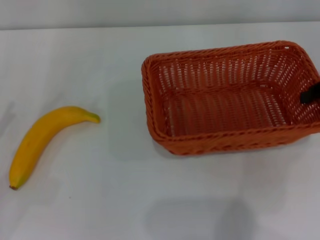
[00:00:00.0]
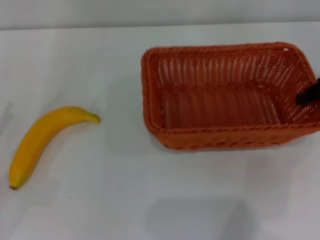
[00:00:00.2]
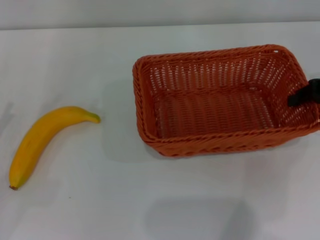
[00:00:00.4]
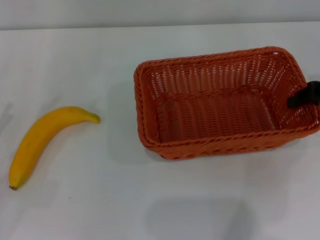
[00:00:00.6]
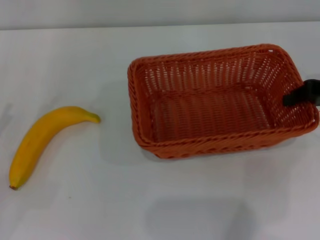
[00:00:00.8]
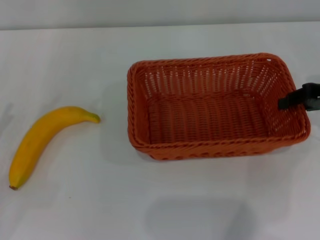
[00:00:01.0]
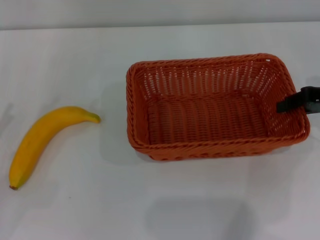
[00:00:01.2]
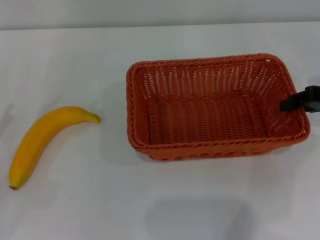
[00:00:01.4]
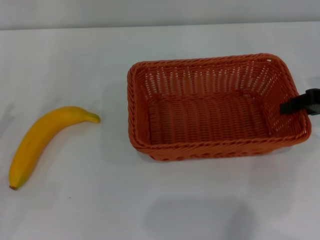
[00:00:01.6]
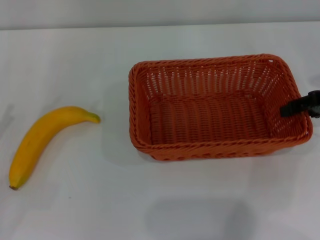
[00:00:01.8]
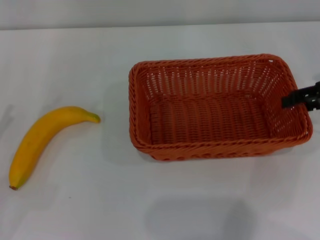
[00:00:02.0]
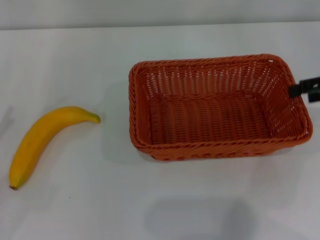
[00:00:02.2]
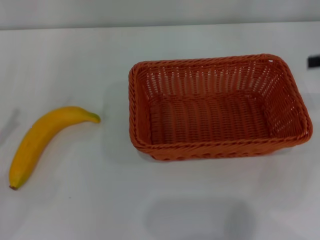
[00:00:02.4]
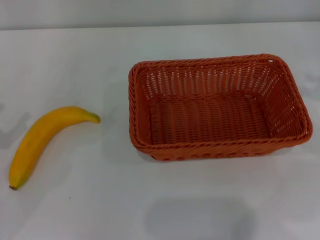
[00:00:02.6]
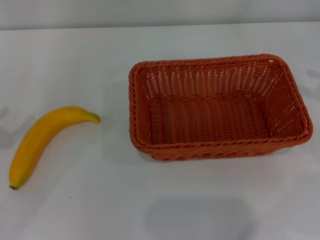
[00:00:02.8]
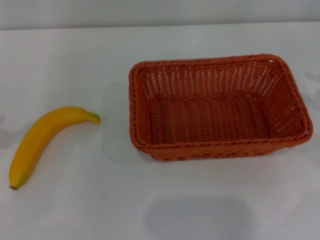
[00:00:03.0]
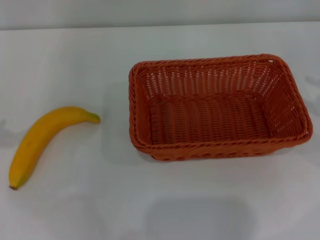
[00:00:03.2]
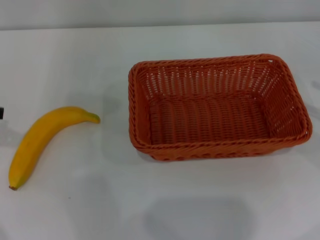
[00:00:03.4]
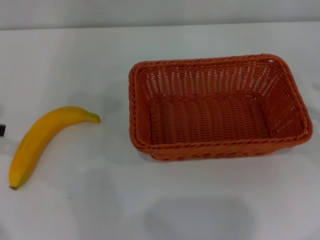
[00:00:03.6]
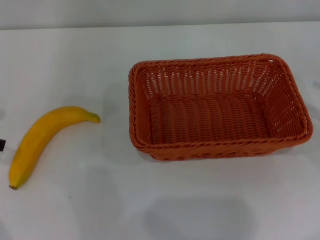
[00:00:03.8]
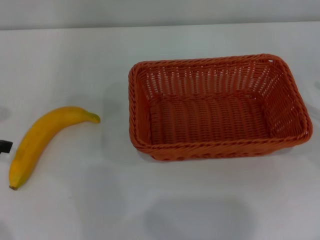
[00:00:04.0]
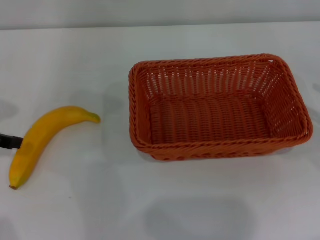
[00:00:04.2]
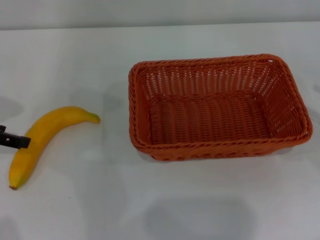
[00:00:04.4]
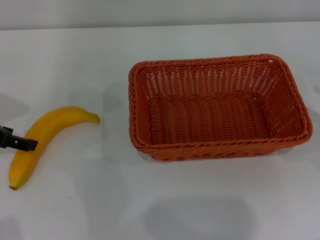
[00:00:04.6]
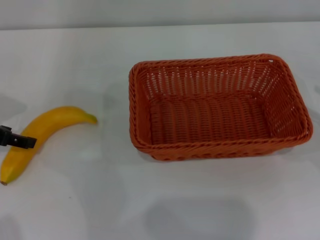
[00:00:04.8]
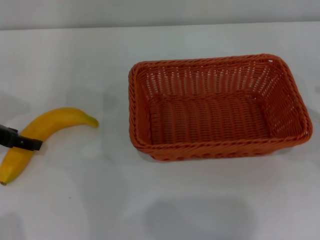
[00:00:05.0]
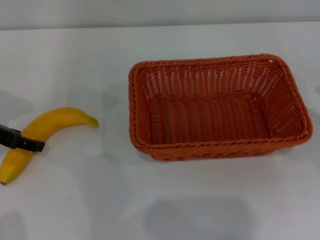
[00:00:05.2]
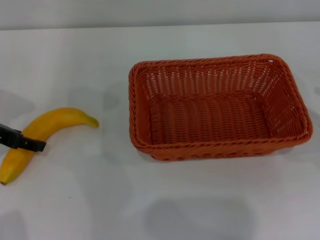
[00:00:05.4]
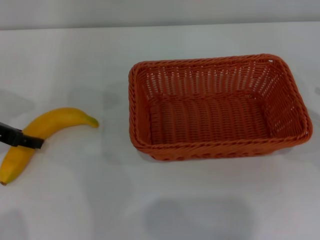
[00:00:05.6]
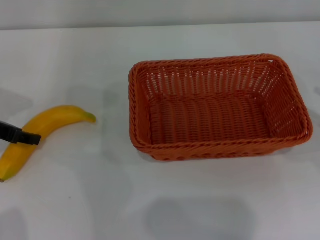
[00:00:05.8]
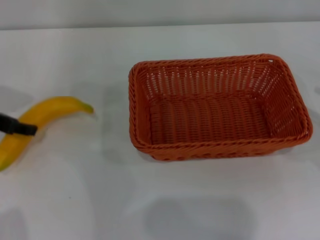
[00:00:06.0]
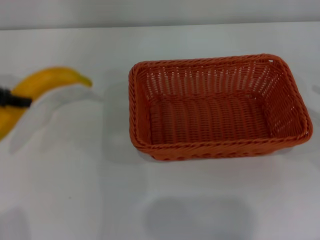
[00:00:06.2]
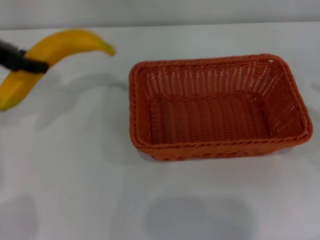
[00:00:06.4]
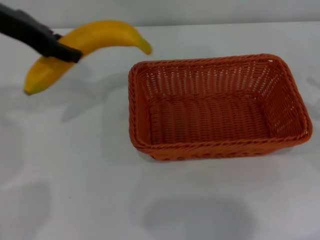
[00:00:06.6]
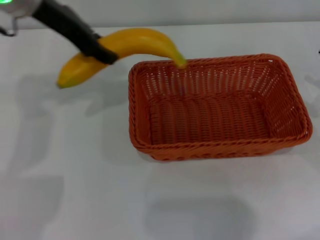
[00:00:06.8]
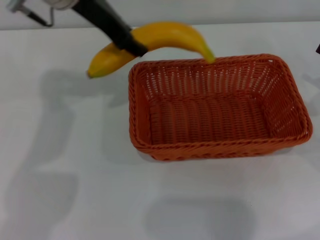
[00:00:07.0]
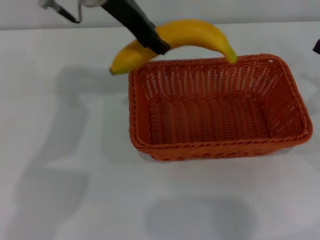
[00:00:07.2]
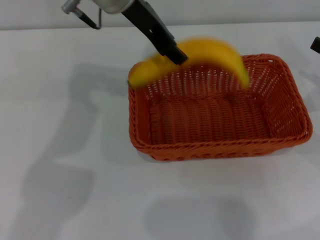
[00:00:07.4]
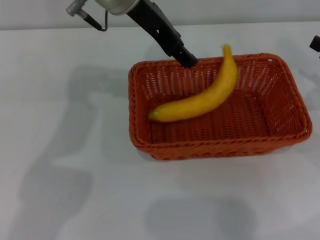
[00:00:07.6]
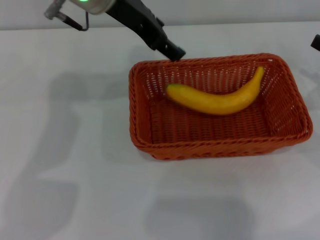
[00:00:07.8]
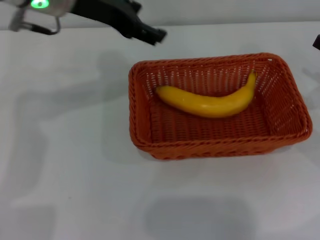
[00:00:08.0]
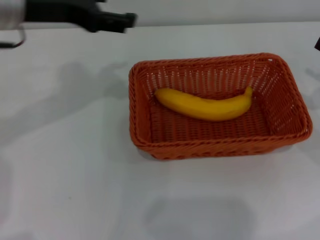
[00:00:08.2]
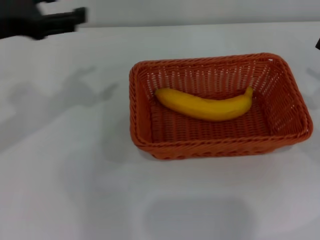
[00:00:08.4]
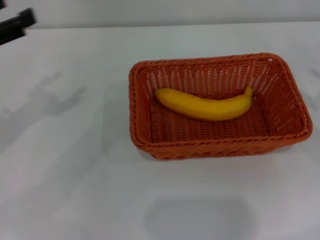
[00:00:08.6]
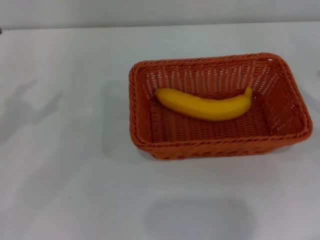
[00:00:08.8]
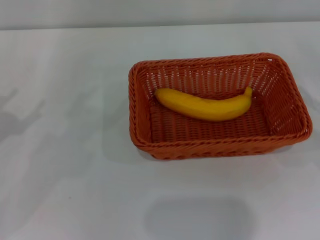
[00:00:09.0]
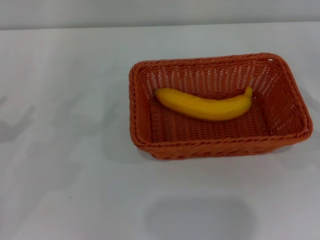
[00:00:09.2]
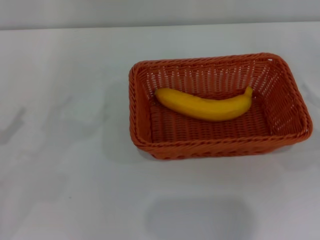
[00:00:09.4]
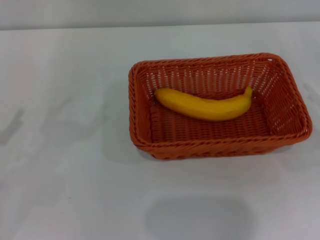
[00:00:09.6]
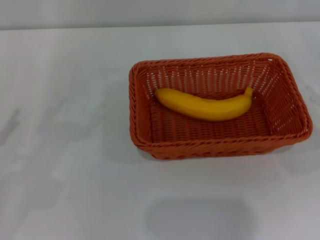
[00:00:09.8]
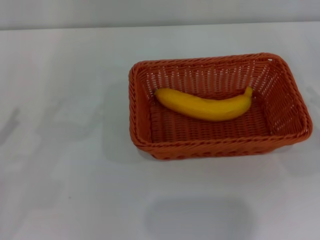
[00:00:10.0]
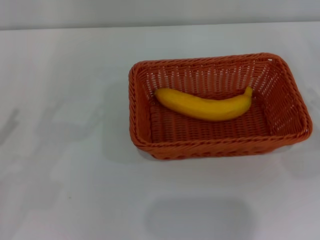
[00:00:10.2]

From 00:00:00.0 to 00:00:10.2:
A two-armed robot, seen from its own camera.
Step, from 00:00:00.0 to 00:00:02.2: Place the light basket in the center of view with the right gripper.
Step, from 00:00:02.6 to 00:00:06.0: Pick up the banana with the left gripper.
Step, from 00:00:06.4 to 00:00:08.0: Place the banana into the light basket with the left gripper.
From 00:00:00.0 to 00:00:01.4: The grippers stay close to where they were, moving slightly.
From 00:00:01.4 to 00:00:03.0: The left gripper travels upward by about 10 cm. The right gripper goes approximately 10 cm to the right, and opens.
From 00:00:04.4 to 00:00:05.8: The left gripper closes up.
From 00:00:05.8 to 00:00:07.2: The left gripper moves to the right and upward, roughly 25 cm, and closes up.
From 00:00:07.2 to 00:00:08.8: The left gripper moves to the left, backward and downward, approximately 30 cm, and opens.

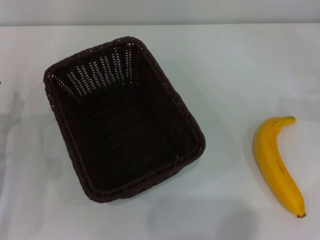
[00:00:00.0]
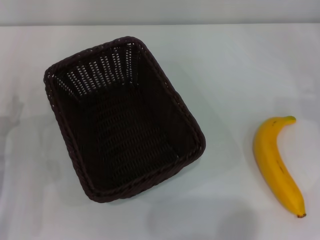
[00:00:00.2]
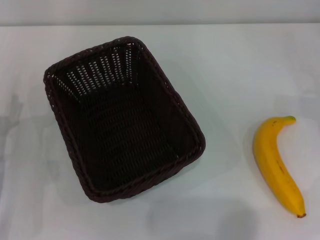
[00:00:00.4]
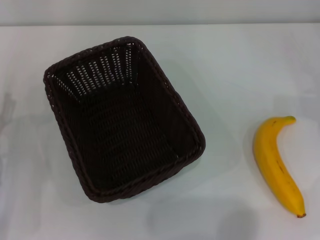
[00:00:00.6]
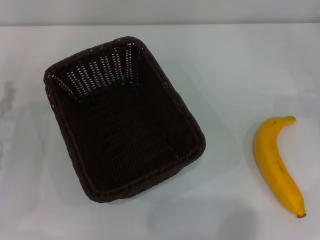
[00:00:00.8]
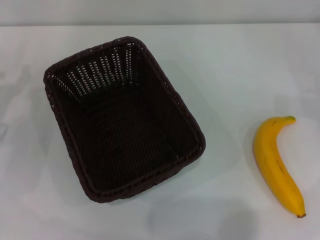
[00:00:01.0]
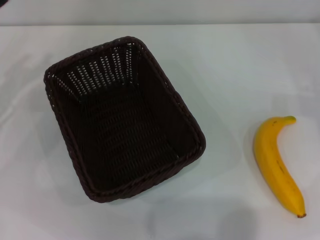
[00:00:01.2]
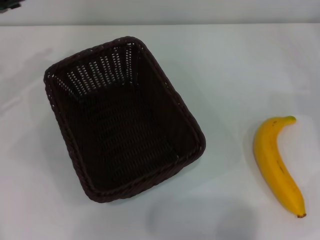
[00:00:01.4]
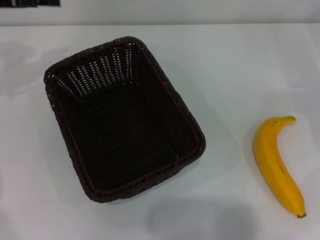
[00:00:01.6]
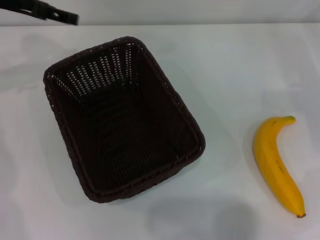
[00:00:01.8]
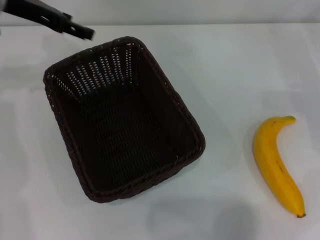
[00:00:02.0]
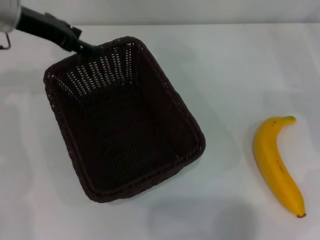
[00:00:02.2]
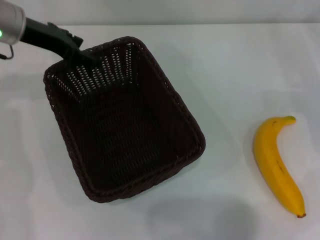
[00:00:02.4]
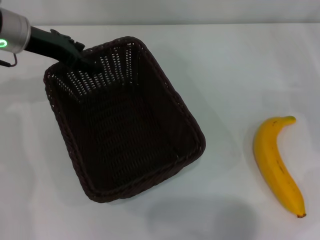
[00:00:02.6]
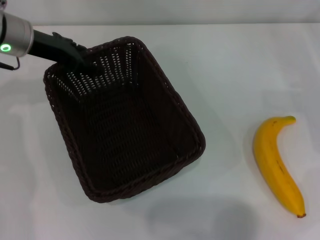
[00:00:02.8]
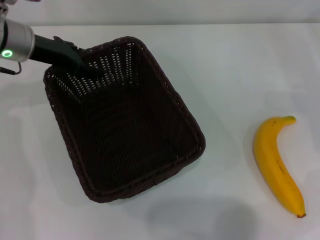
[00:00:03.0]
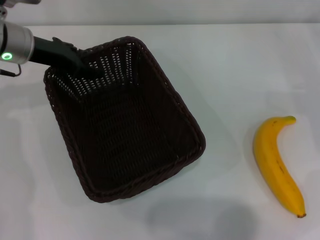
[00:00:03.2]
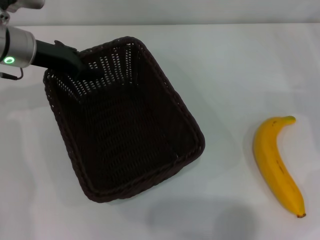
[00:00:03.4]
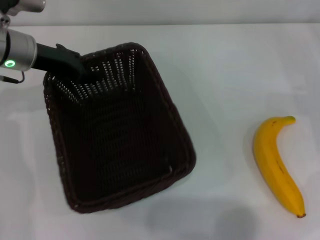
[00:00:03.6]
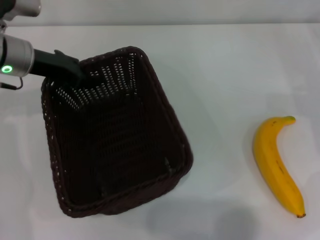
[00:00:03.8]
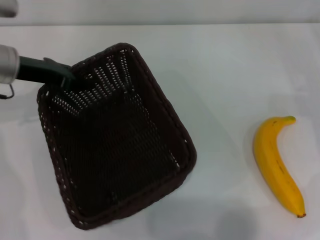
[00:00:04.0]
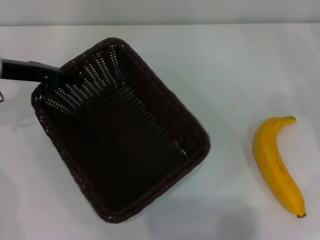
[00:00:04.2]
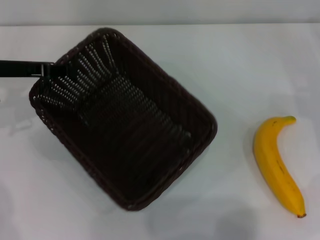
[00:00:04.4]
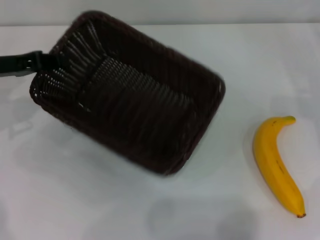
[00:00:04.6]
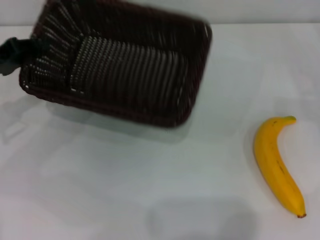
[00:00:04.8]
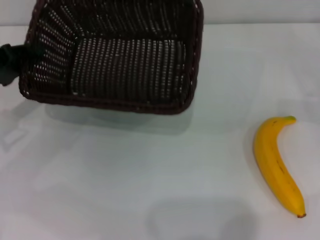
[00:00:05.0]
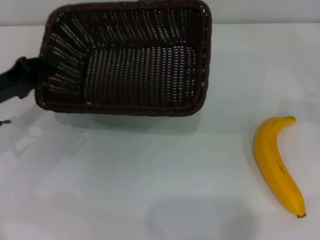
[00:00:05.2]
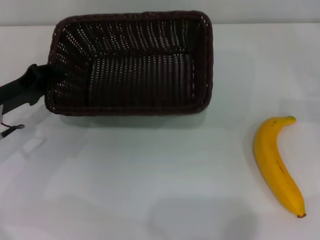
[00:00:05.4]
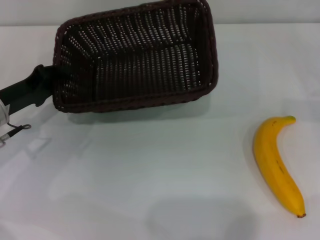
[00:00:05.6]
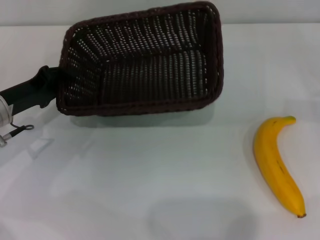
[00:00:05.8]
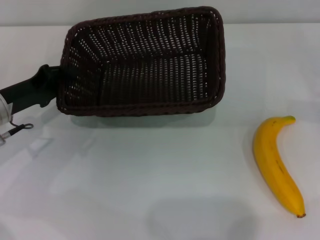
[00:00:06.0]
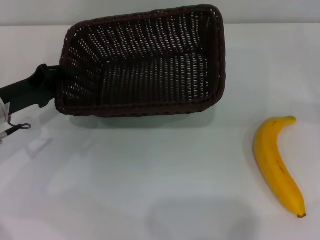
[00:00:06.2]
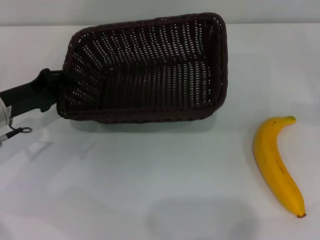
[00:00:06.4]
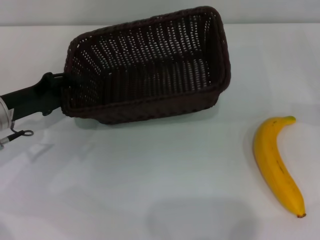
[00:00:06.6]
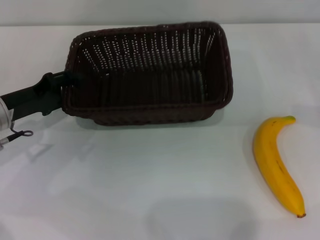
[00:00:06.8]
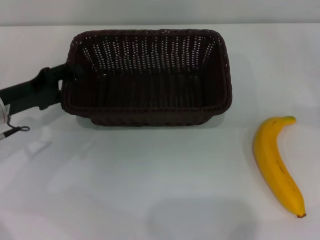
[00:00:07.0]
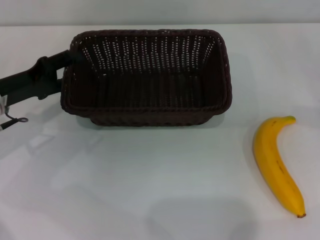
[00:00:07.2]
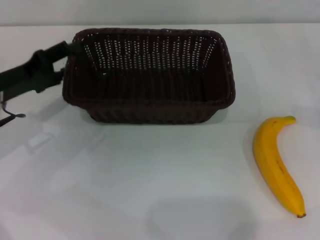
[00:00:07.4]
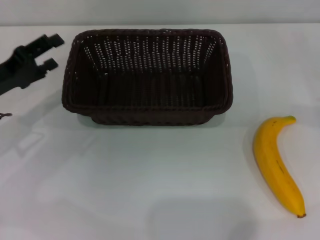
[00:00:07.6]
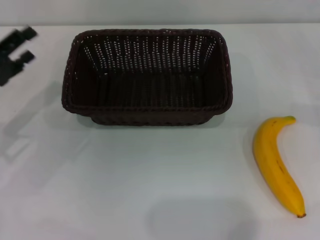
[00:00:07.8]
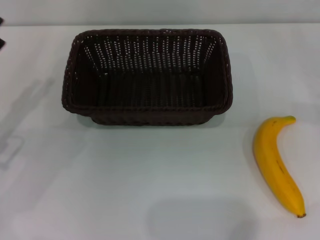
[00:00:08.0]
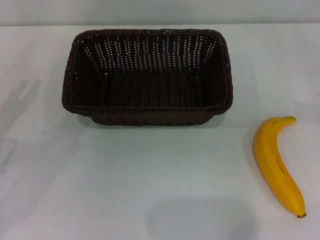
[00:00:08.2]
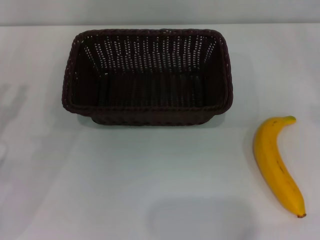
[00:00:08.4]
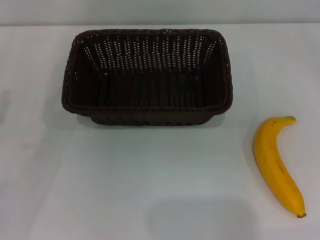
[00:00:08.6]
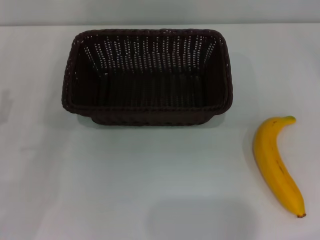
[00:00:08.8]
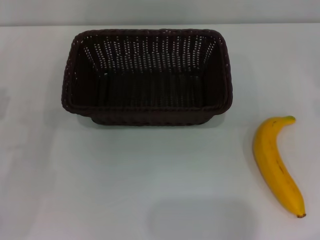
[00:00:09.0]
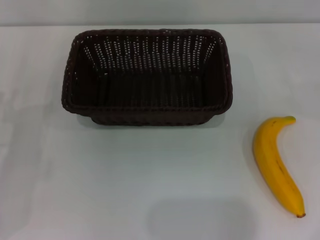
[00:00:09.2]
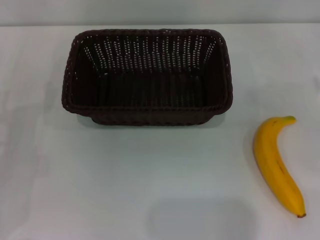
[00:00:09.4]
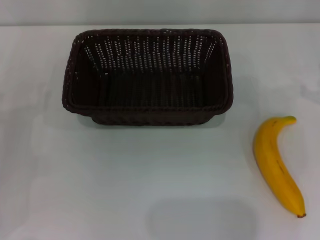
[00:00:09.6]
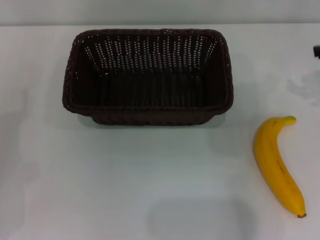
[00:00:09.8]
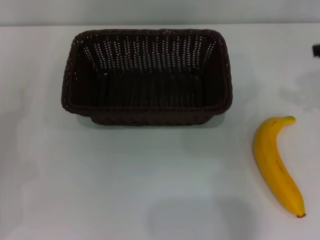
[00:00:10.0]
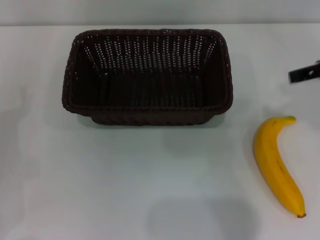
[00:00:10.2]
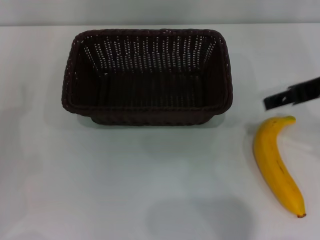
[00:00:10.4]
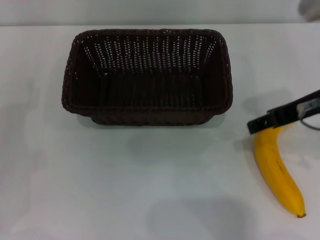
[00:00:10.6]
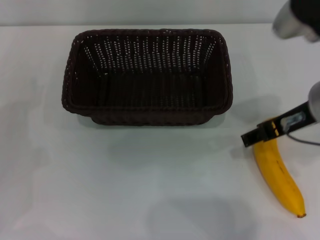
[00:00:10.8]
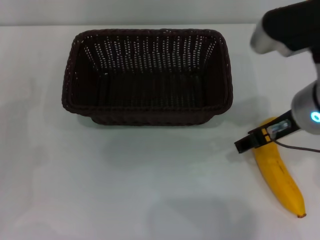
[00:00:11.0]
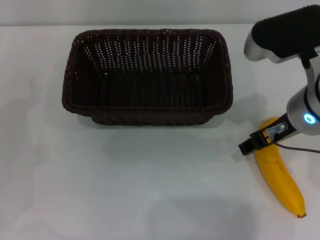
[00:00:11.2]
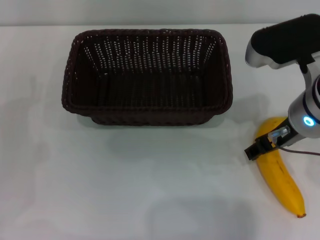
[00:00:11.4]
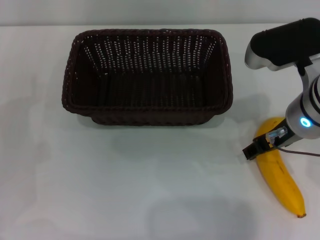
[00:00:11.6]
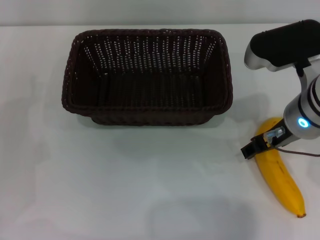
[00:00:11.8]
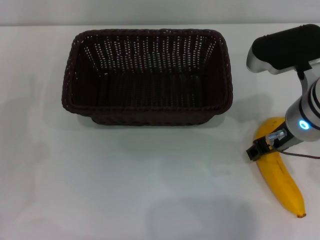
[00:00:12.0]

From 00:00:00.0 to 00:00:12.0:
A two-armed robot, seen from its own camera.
Step, from 00:00:00.0 to 00:00:04.4: Pick up the dark basket with the left gripper.
Step, from 00:00:04.6 to 00:00:07.6: Place the dark basket in the center of view with the left gripper.
From 00:00:00.0 to 00:00:01.6: The left gripper heads upward and forward, covering roughly 25 cm.
From 00:00:01.6 to 00:00:03.0: The left gripper moves to the right and downward, some 10 cm.
From 00:00:03.0 to 00:00:04.4: The left gripper goes about 5 cm to the left, and closes up.
From 00:00:04.4 to 00:00:06.0: The left gripper moves downward, some 5 cm.
From 00:00:06.0 to 00:00:07.6: The left gripper opens.
From 00:00:07.6 to 00:00:09.0: The left gripper is displaced backward by roughly 10 cm.
From 00:00:09.0 to 00:00:10.4: The right gripper is displaced to the left and upward by about 25 cm.
From 00:00:10.4 to 00:00:12.0: The right gripper shifts roughly 10 cm downward and to the left.
